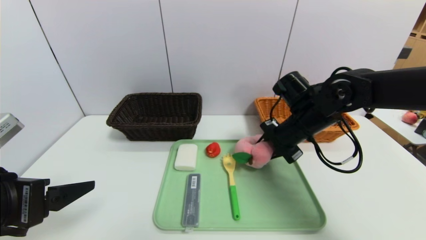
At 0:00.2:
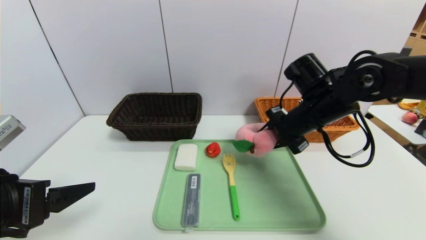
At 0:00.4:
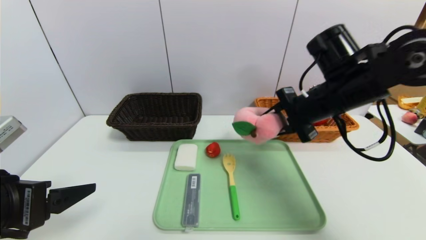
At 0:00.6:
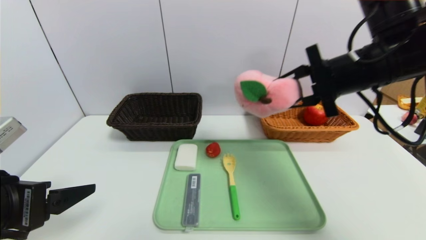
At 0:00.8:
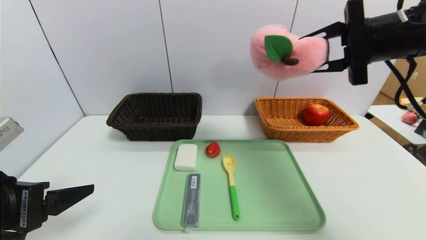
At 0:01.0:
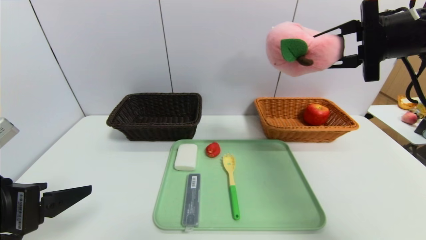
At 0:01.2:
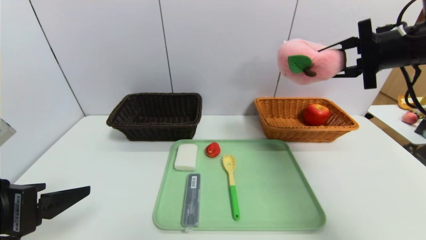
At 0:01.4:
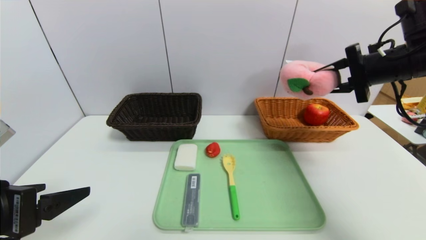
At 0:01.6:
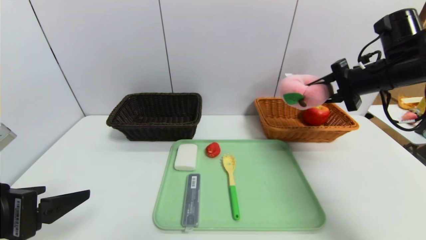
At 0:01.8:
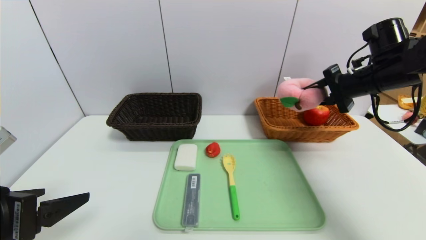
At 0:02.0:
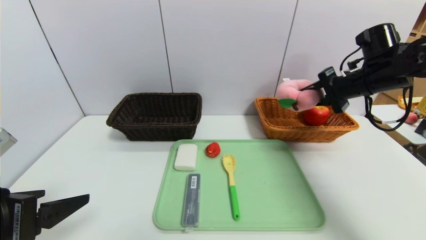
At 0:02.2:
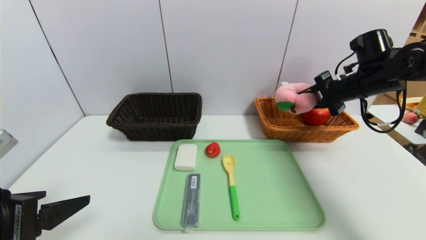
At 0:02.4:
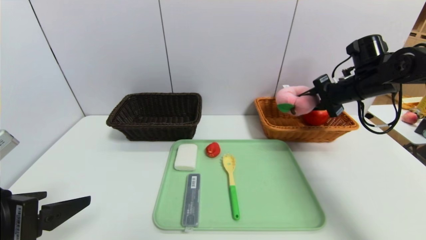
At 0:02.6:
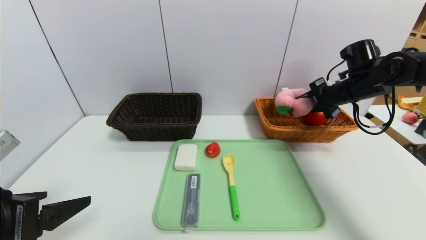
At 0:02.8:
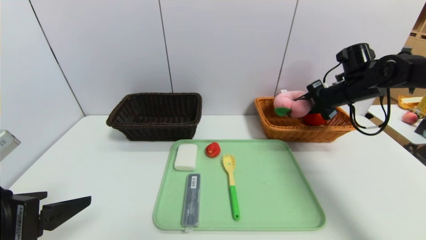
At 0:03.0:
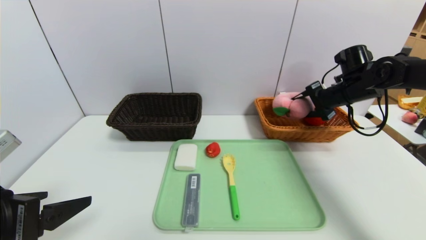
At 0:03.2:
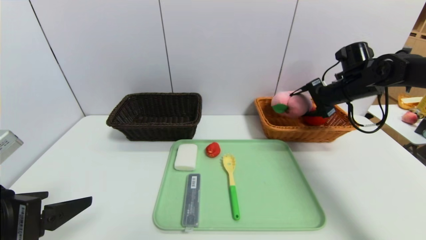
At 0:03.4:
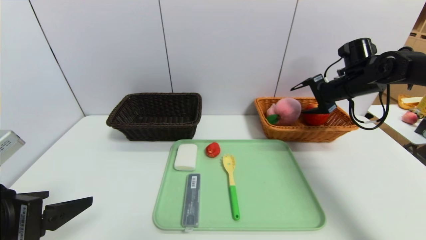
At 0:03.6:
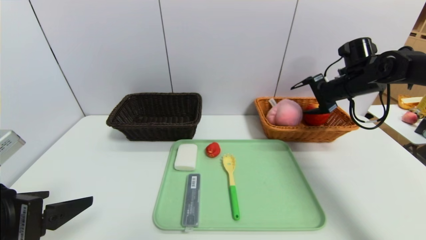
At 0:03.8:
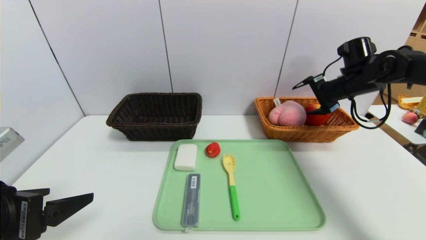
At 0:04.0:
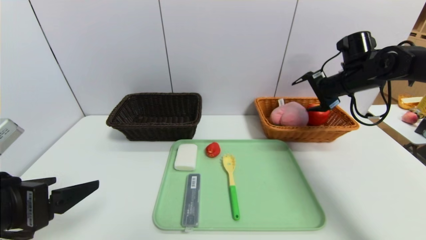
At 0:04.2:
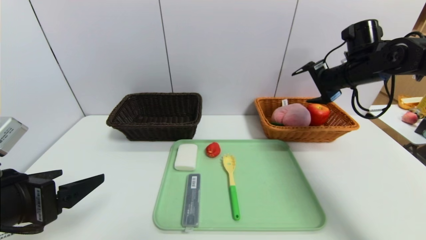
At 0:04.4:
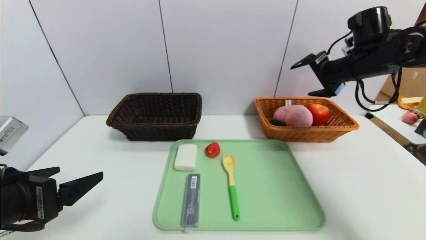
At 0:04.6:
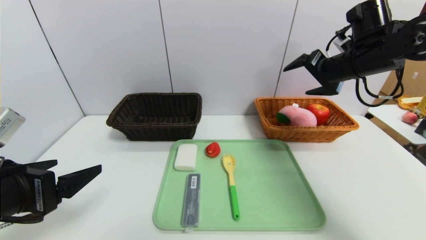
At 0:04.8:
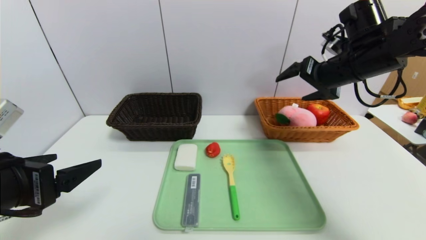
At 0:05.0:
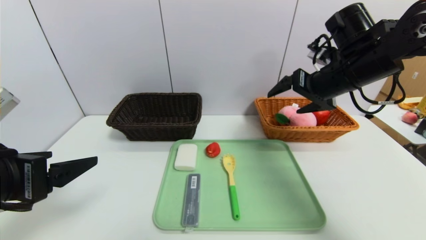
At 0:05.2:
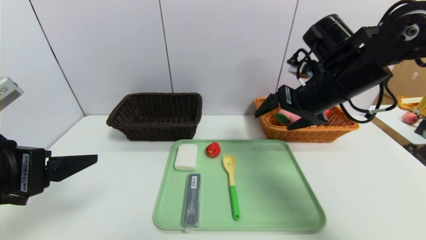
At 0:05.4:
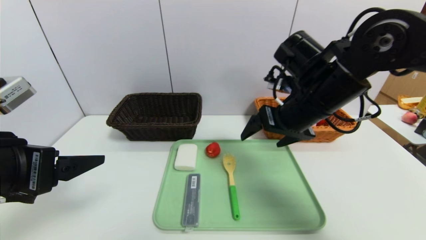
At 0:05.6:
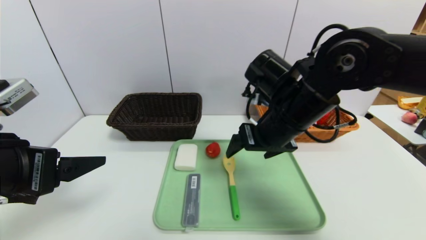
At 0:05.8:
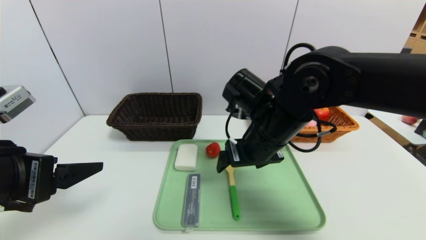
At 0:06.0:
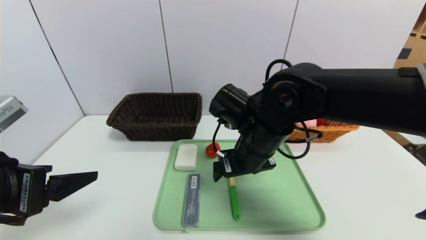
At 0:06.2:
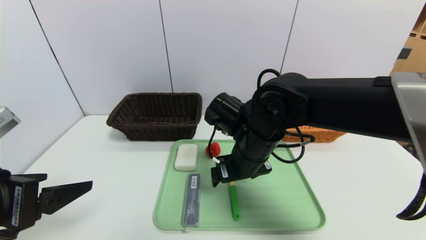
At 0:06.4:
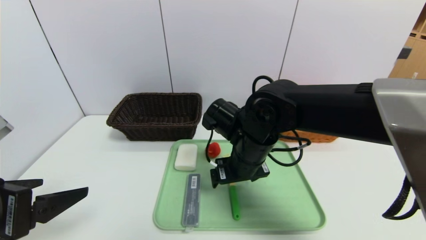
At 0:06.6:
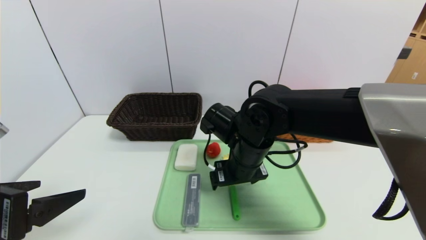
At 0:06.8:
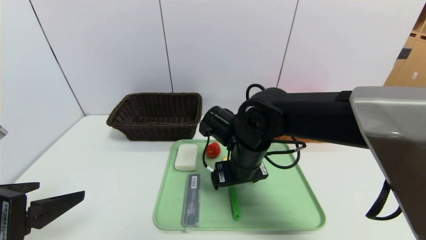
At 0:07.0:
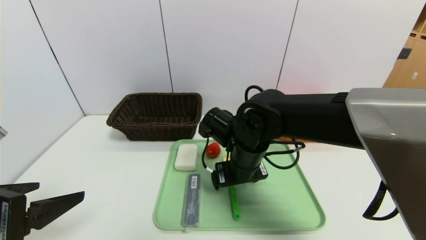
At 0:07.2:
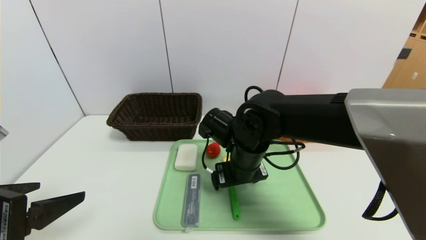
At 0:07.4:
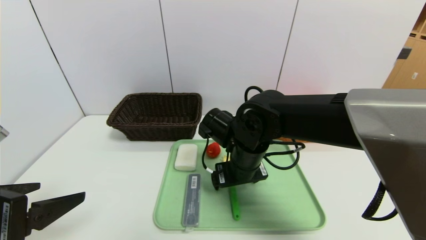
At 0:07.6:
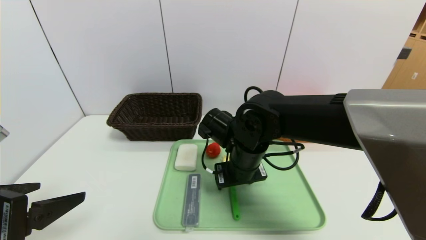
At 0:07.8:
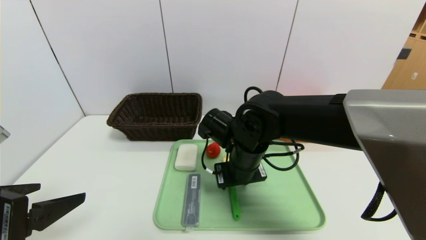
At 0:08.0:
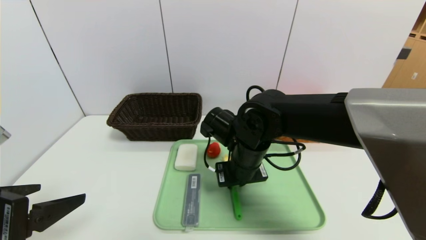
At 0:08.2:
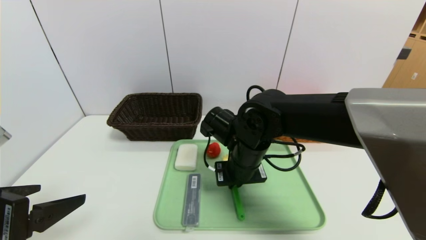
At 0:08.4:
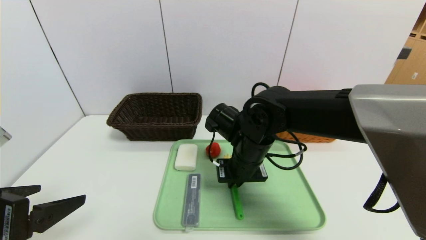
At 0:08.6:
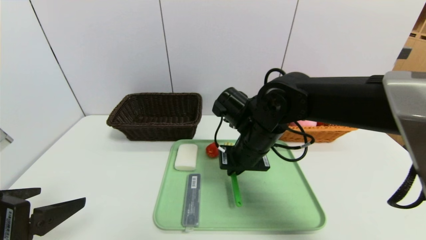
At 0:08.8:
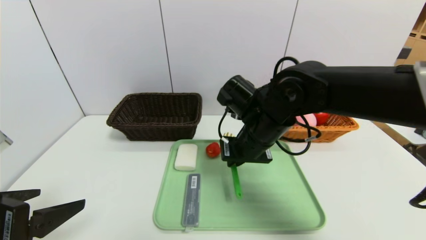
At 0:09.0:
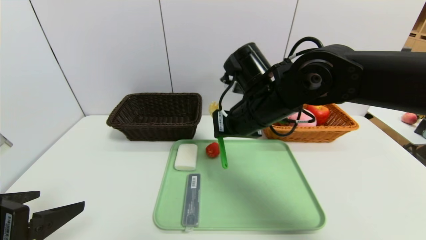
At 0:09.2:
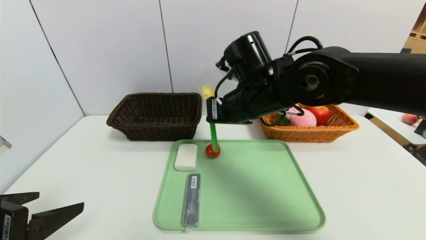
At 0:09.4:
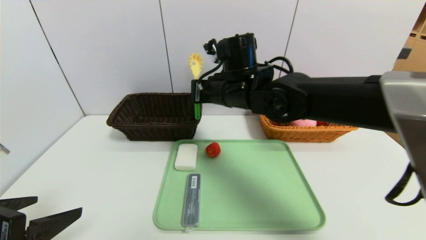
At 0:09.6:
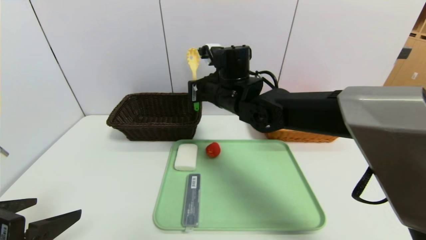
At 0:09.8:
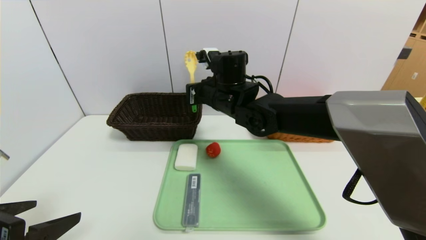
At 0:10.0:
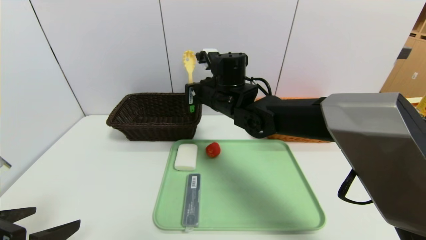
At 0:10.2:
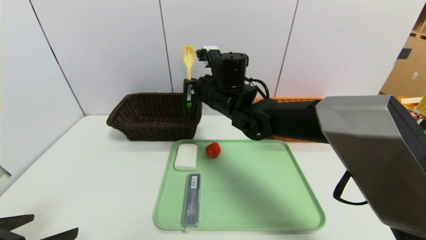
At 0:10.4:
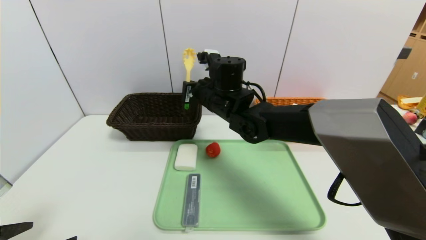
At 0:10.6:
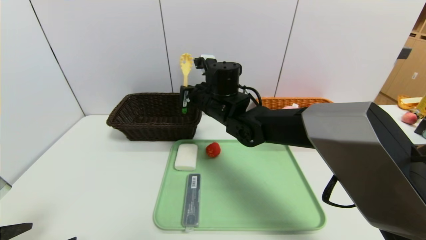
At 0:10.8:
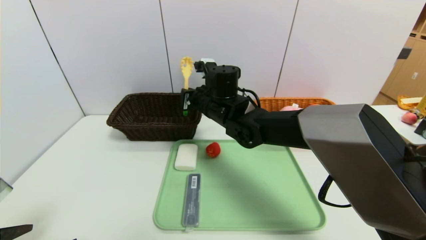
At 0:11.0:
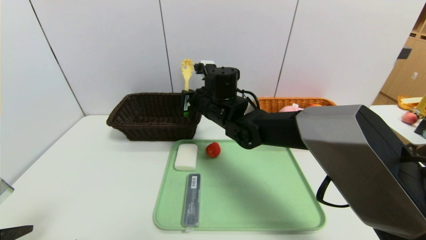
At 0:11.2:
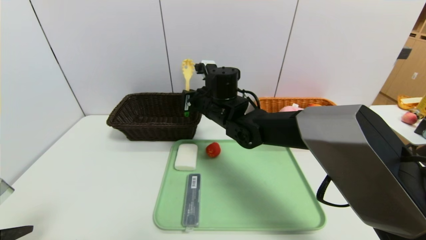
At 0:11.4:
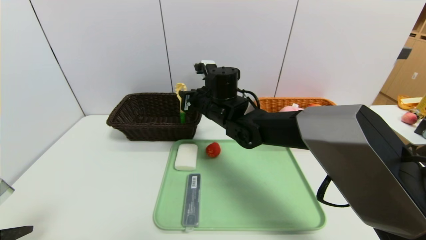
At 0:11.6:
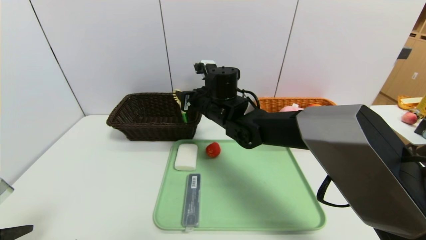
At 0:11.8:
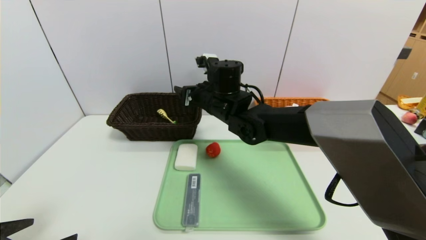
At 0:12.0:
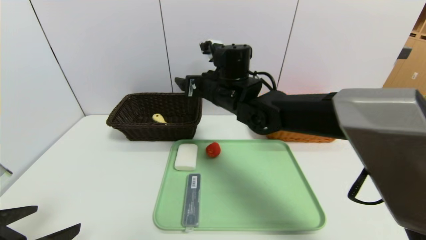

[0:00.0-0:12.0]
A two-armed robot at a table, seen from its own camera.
Task of the whole recording: place the food in the right basket with the right gripper, and place the non food items in the left basket with the left gripper.
Step, 0:00.0 to 0:03.8: Grasp the peach and put it in the right basket.
0:00.0 to 0:01.6: The right gripper travels to the right and upward by approximately 15 cm.
0:01.6 to 0:03.0: The right gripper moves forward and downward, about 10 cm.
0:03.0 to 0:04.4: The right gripper moves upward, about 5 cm, and opens its fingers.
0:04.4 to 0:06.0: The right gripper goes roughly 25 cm to the left and backward.
0:06.0 to 0:07.6: The right gripper shifts approximately 5 cm downward.
0:07.6 to 0:09.0: The right gripper heads upward, covering some 10 cm, and closes.
0:09.0 to 0:10.4: The right gripper heads forward and to the left, covering approximately 10 cm.
0:10.4 to 0:12.0: The right gripper opens.

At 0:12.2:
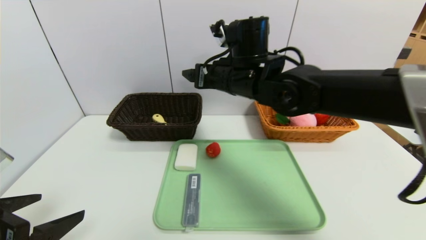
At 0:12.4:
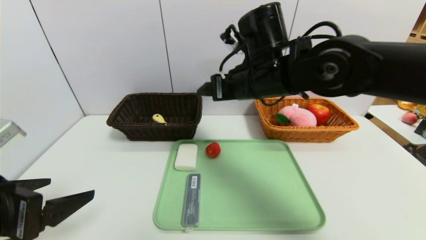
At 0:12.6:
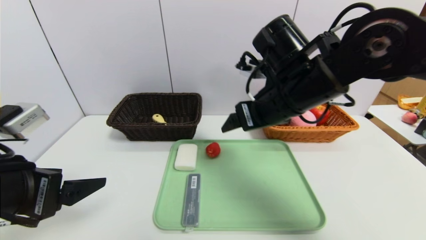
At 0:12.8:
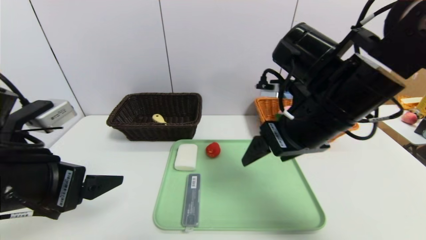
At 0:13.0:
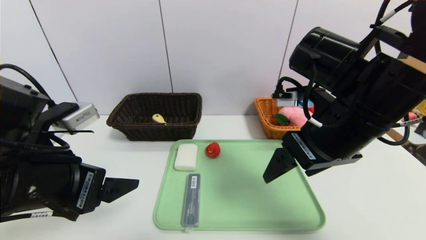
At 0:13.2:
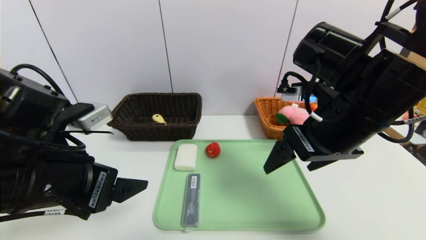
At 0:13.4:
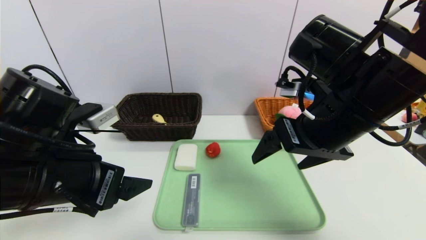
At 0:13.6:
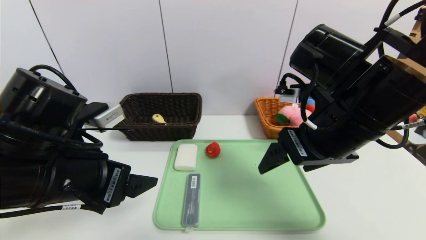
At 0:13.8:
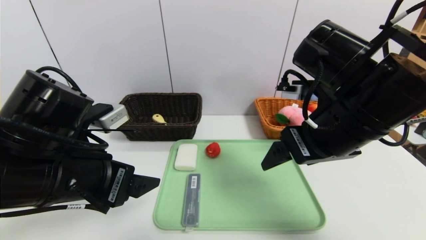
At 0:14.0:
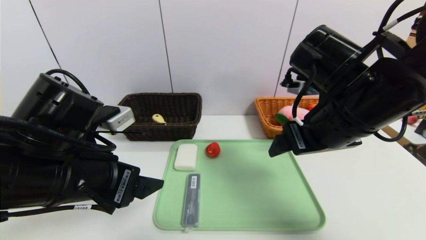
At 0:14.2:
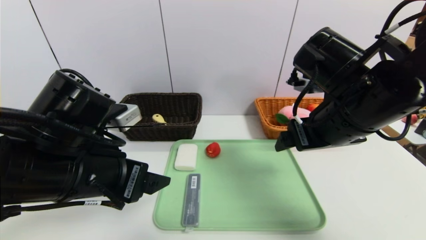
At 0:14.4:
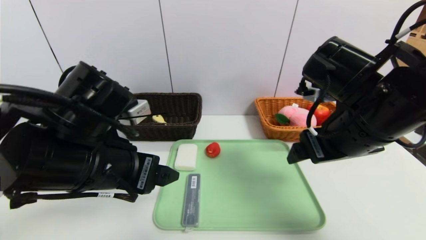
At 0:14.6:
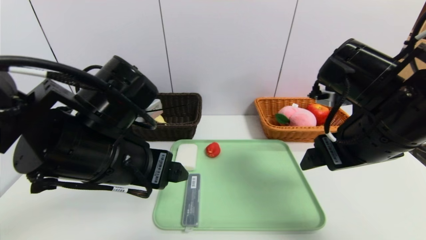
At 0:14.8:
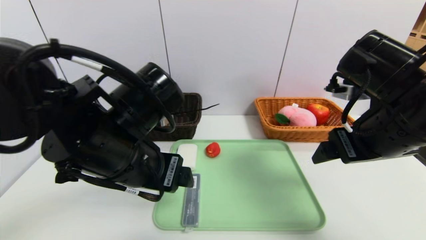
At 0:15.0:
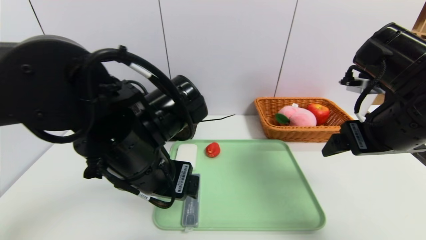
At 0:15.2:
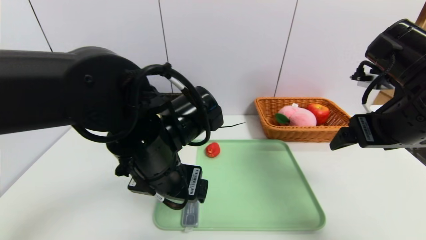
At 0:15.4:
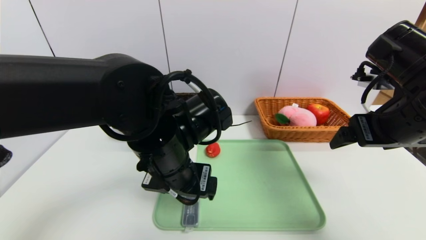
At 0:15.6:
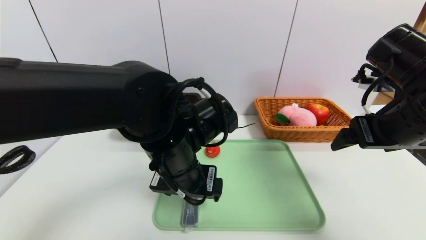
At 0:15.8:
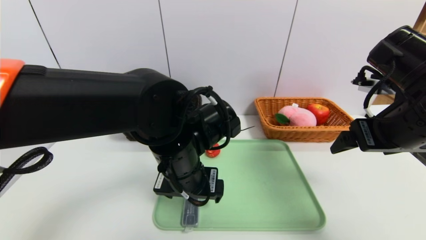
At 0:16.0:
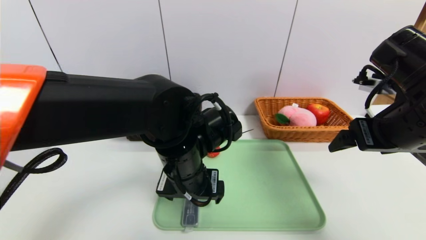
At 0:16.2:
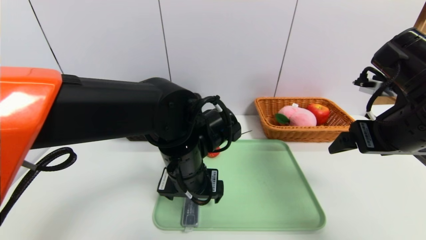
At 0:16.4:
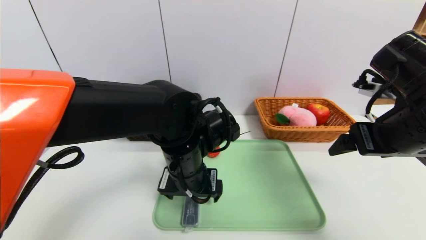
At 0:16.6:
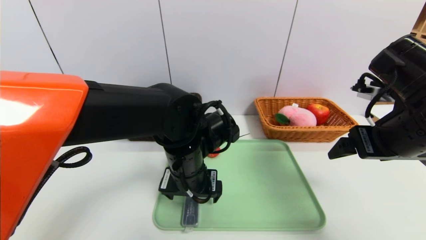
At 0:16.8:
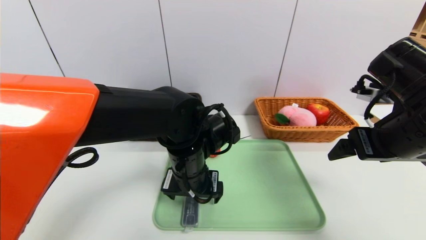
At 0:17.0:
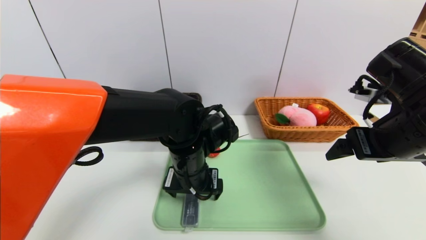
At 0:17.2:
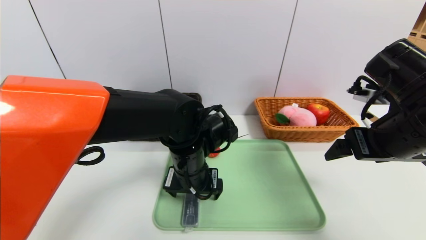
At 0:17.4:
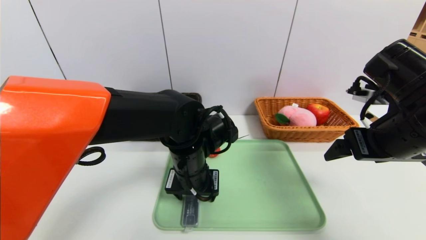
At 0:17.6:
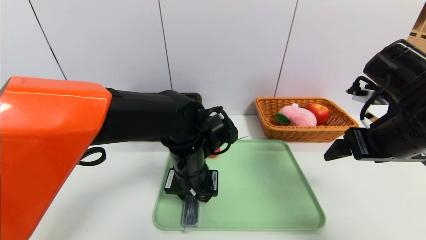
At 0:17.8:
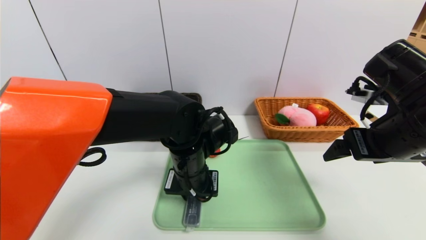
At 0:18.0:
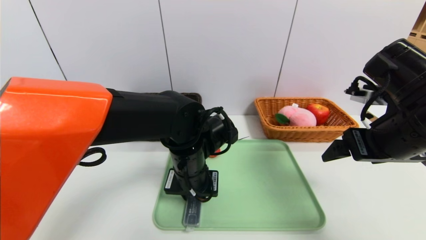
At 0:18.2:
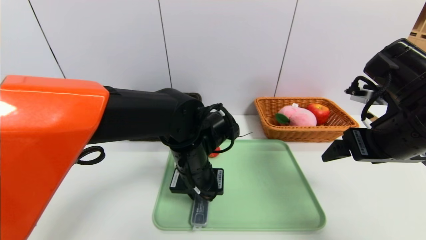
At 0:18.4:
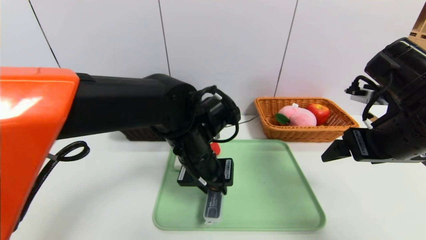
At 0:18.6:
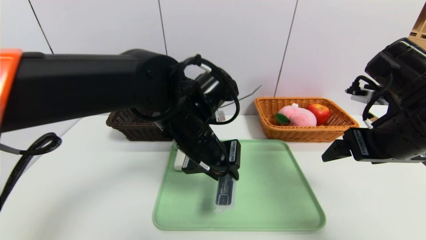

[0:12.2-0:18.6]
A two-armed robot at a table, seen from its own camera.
Task of the whole recording: place the food in the right basket with the right gripper, and place the non food items in the left basket with the left gripper.
Step, 0:12.2 to 0:14.4: Grasp the spoon and put it in the left basket.
0:12.2 to 0:13.8: The right gripper moves backward and to the right, approximately 15 cm. The left gripper travels to the right and forward by roughly 10 cm.
0:13.8 to 0:15.4: The right gripper moves to the right, some 10 cm, while the left gripper moves to the right and forward, about 15 cm.
0:15.4 to 0:17.0: The left gripper moves downward, roughly 5 cm.
0:17.0 to 0:18.6: The left gripper is displaced upward by about 10 cm, and closes its fingers.
